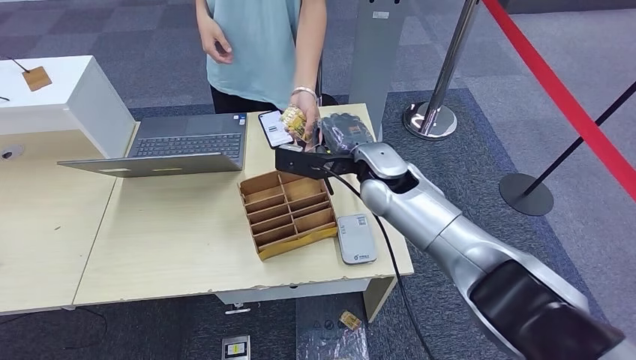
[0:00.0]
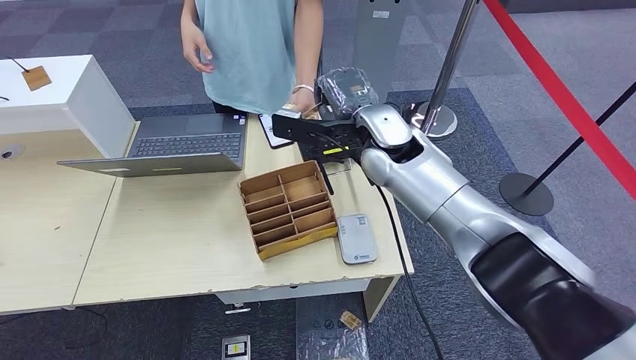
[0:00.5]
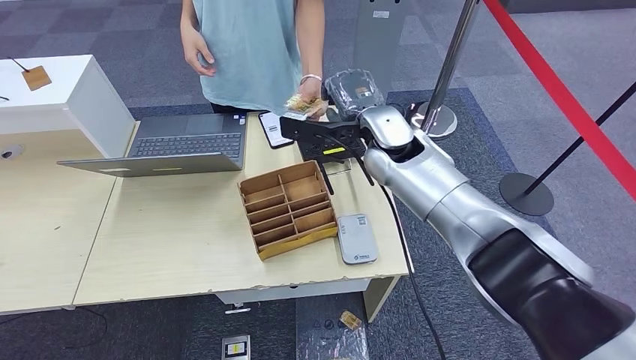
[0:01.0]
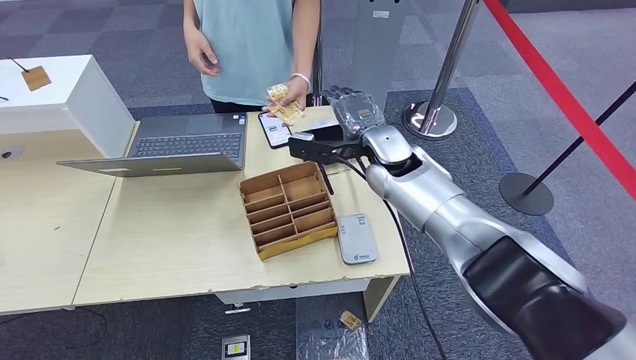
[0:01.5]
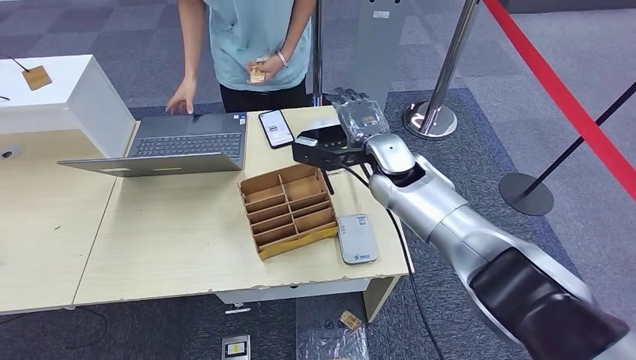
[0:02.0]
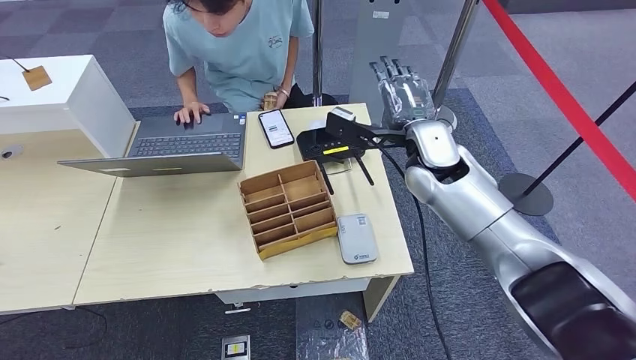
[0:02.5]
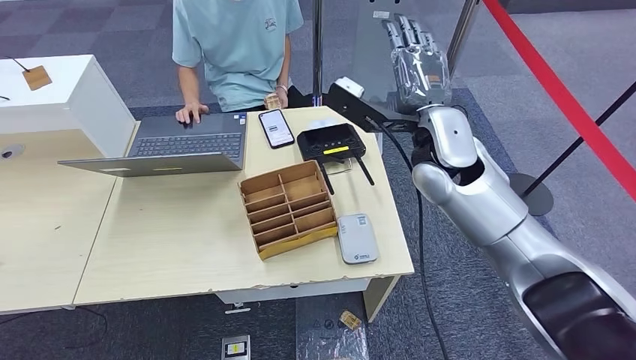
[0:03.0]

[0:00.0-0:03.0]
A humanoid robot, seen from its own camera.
Step, 0:00.0 to 0:03.0: Hand the room key to the person.
0:01.5 to 0:03.0: The right hand shifts about 10 cm upward, backward and to the right.

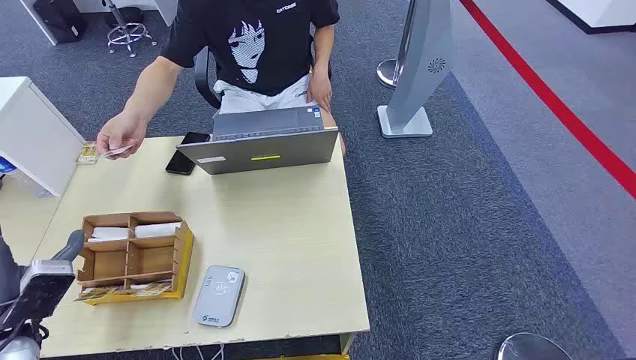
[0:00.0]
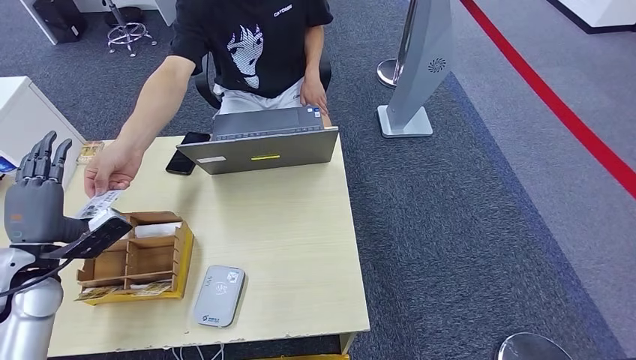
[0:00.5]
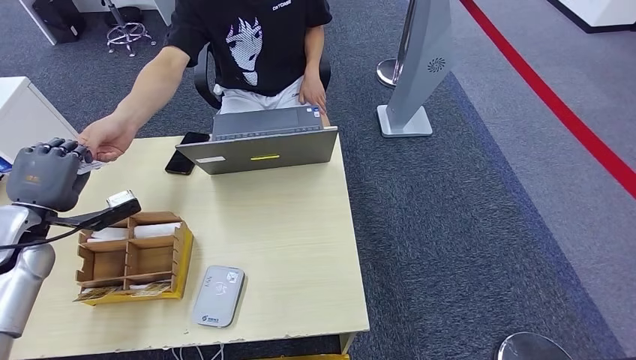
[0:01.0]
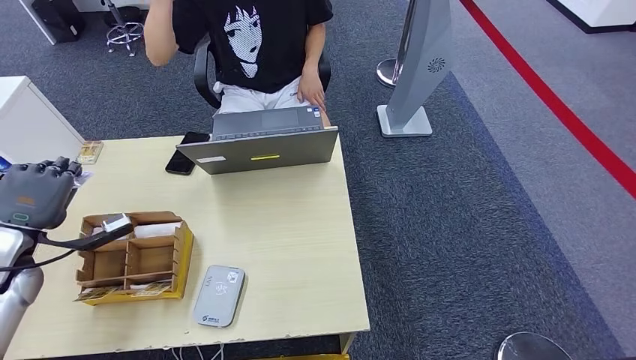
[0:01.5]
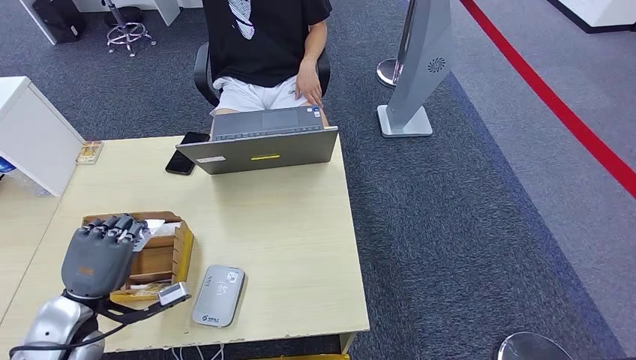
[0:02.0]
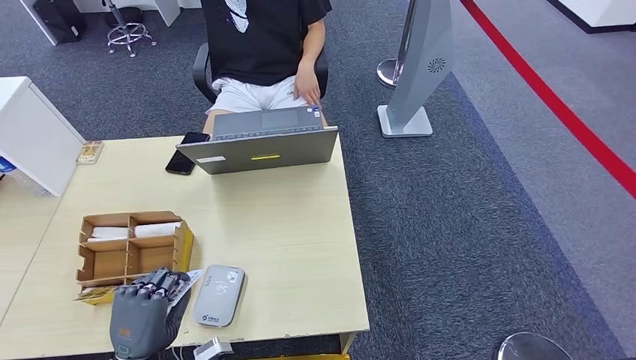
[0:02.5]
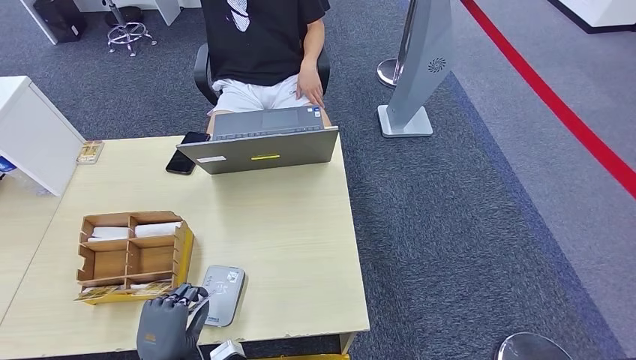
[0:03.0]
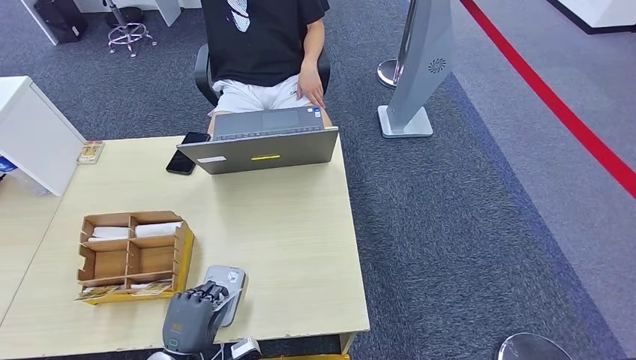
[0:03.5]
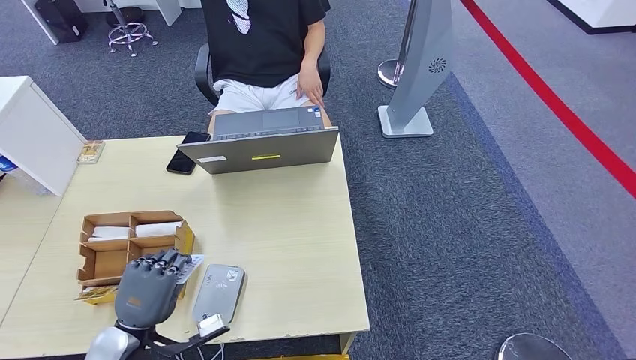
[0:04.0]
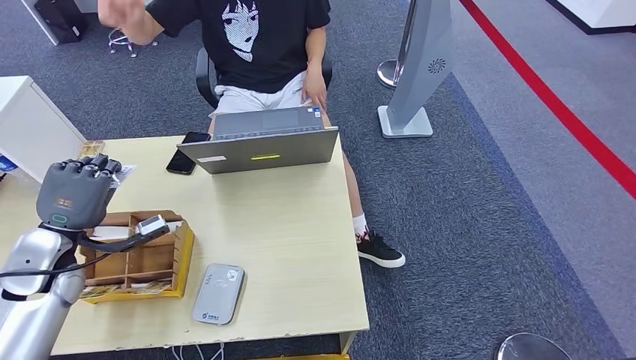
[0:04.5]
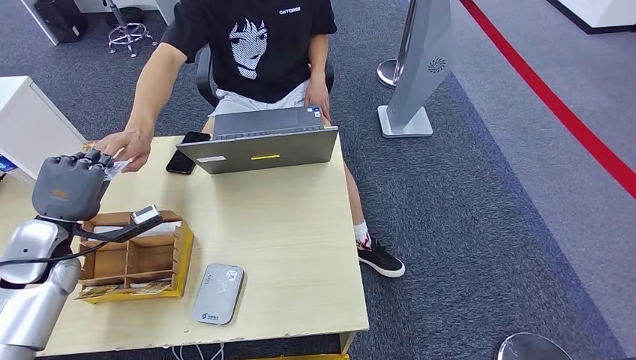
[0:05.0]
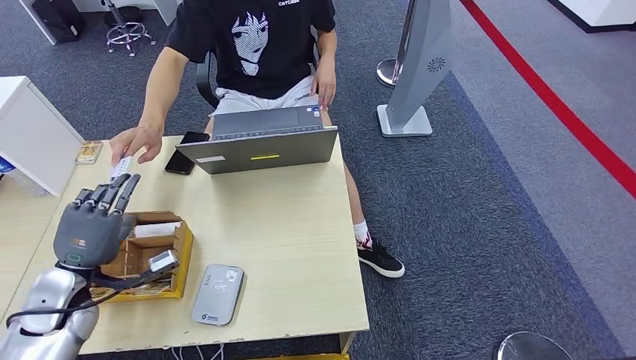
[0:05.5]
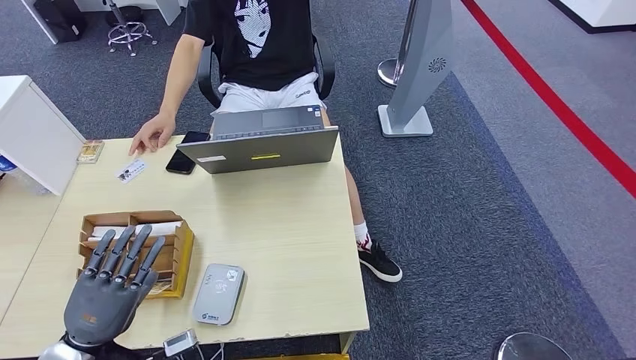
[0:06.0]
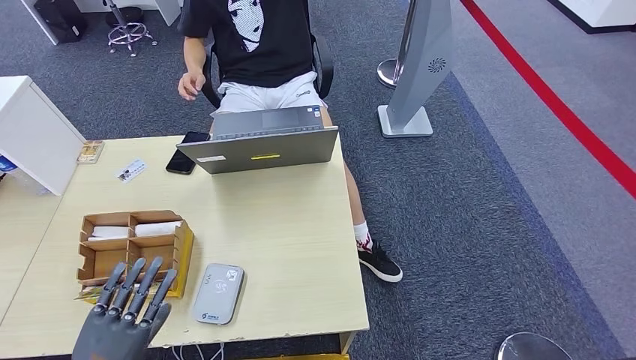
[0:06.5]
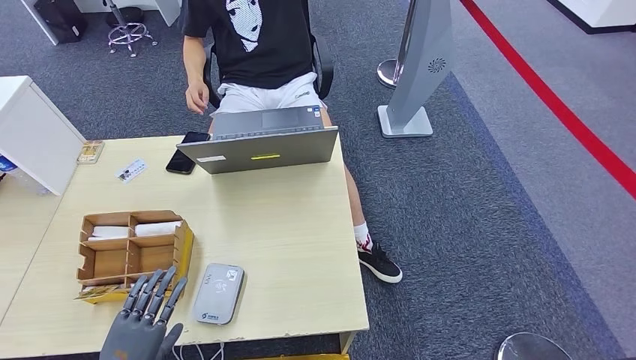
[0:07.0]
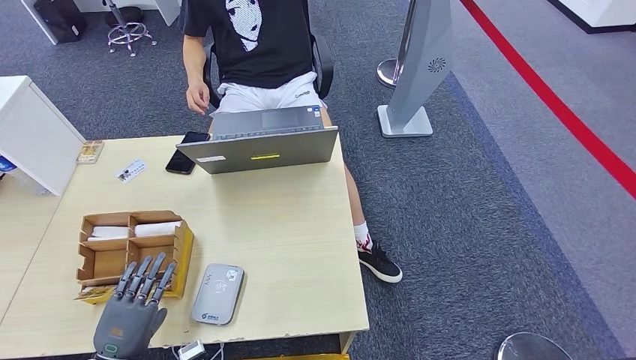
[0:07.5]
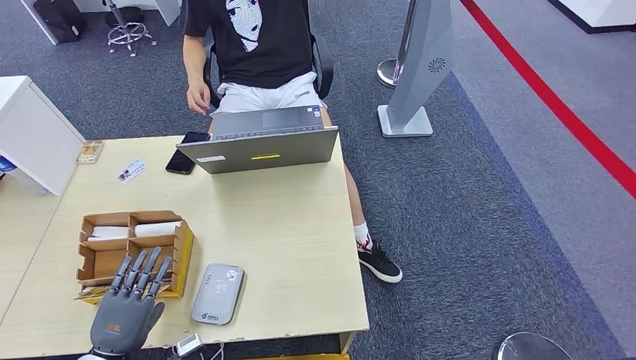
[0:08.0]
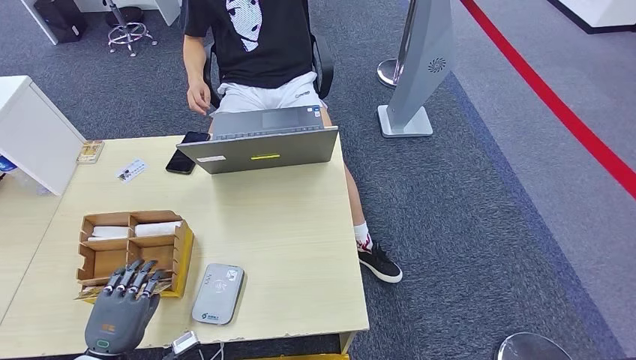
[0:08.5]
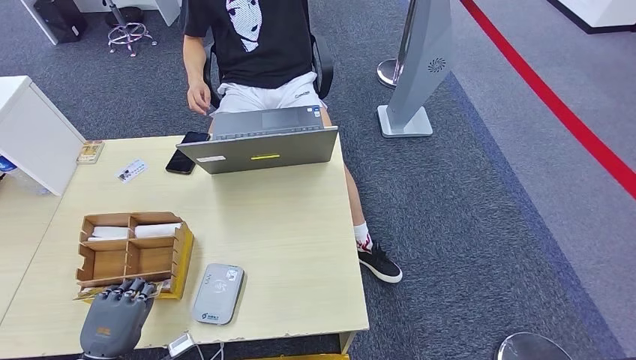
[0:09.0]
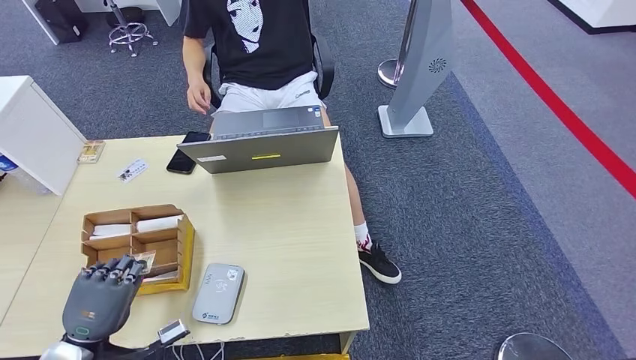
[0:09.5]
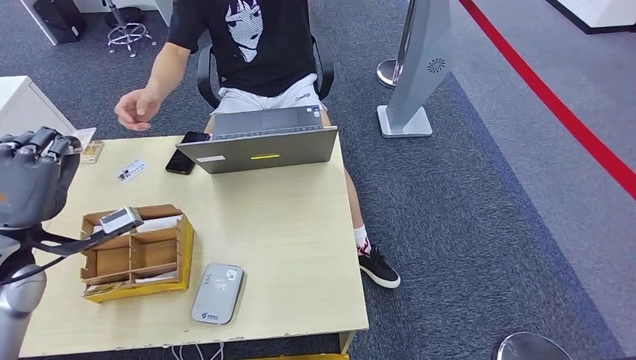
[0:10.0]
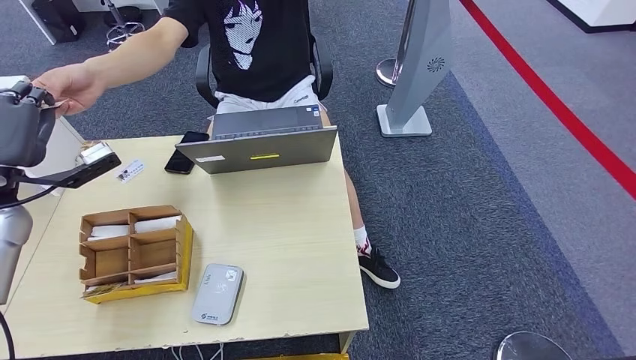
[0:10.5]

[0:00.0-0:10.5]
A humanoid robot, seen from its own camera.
Step, 0:00.0 to 0:03.0: Take the ID card from the person's hand.
Step, 0:03.5 to 0:04.0: Place the ID card on the card reader.
Step, 0:04.5 to 0:08.5: Hand the ID card to the person.
Step, 0:09.0 to 0:10.0: Pick up the room key from the key card box.
0:02.0 to 0:04.0: The left hand goes some 10 cm to the right and downward.
0:04.0 to 0:06.5: The left hand goes forward and returns, approximately 15 cm each way.
0:06.5 to 0:08.5: The left hand is displaced downward by about 5 cm.
0:08.5 to 0:10.5: The left hand is displaced upward and forward by approximately 35 cm.

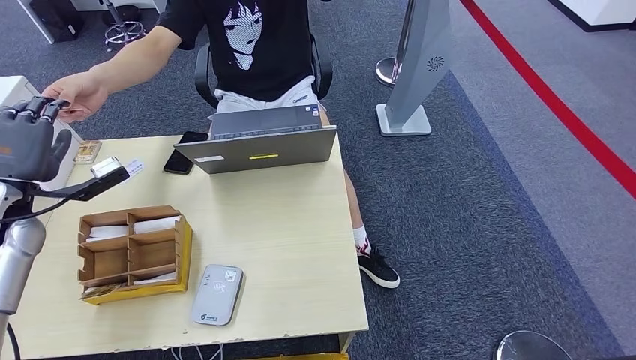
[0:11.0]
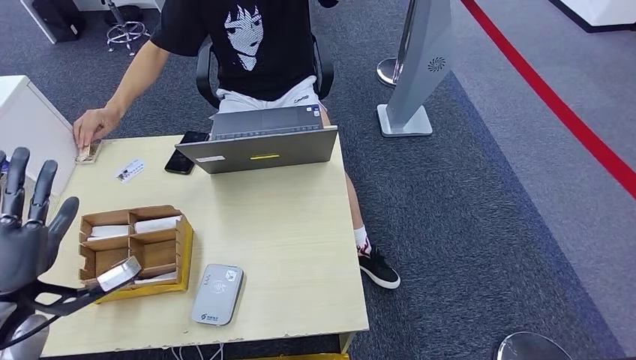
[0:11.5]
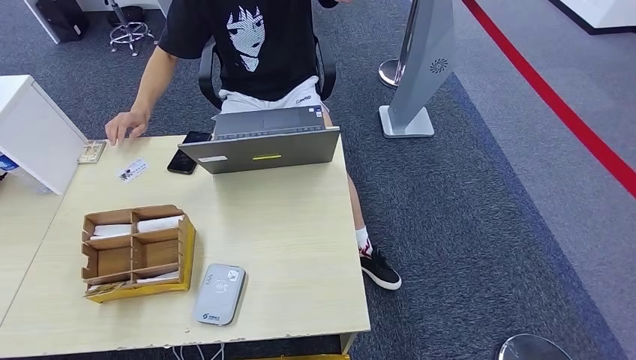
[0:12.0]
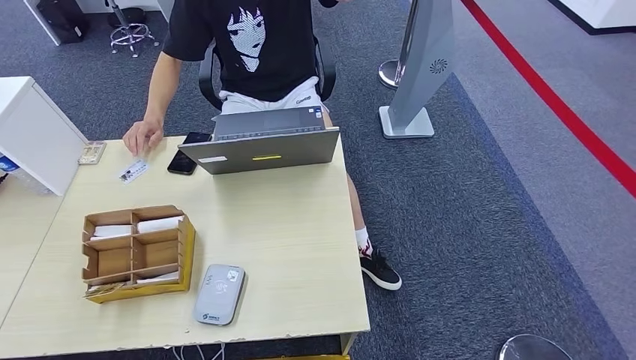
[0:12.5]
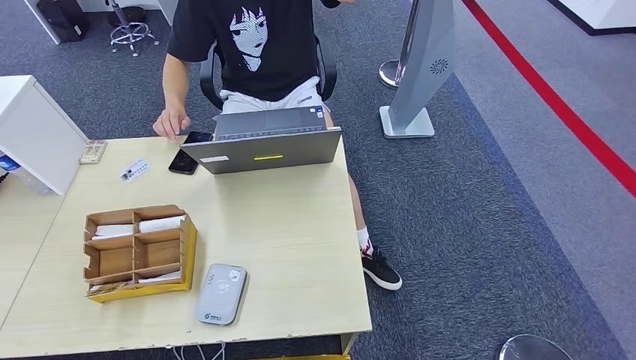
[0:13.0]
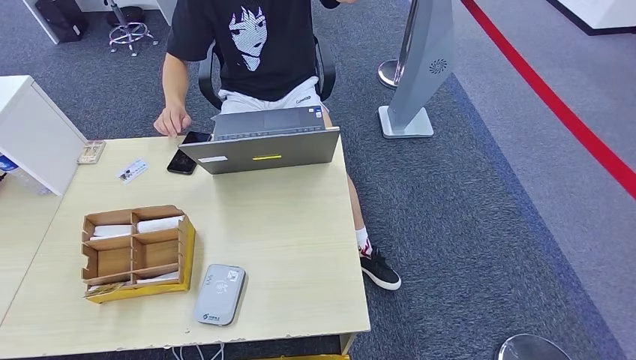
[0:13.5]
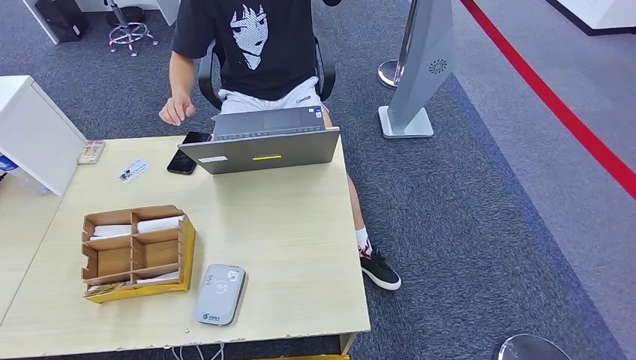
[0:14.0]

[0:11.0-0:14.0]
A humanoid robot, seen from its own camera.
Step, 0:11.0 to 0:14.0: Hand the room key to the person.
0:11.0 to 0:12.5: The left hand heads backward and downward, covering some 50 cm.
0:12.5 to 0:14.0: The left hand shifts about 15 cm to the right and downward.
